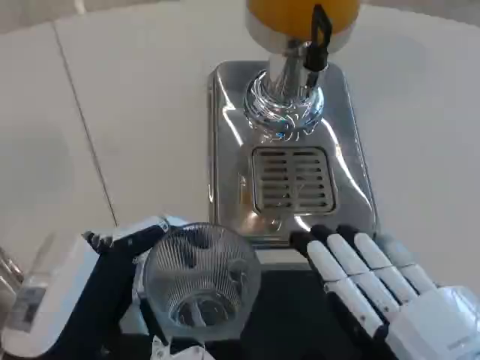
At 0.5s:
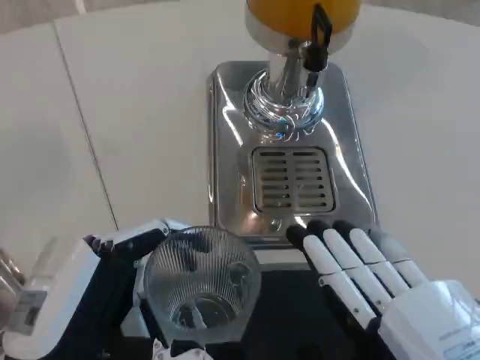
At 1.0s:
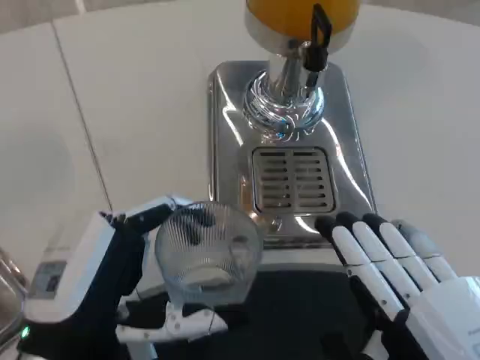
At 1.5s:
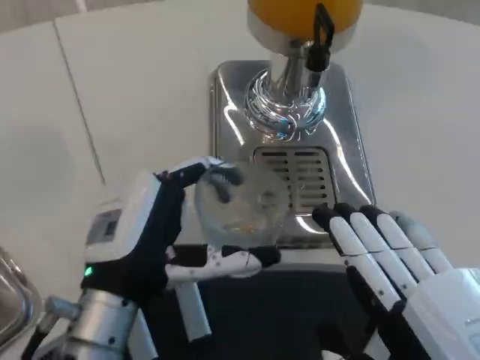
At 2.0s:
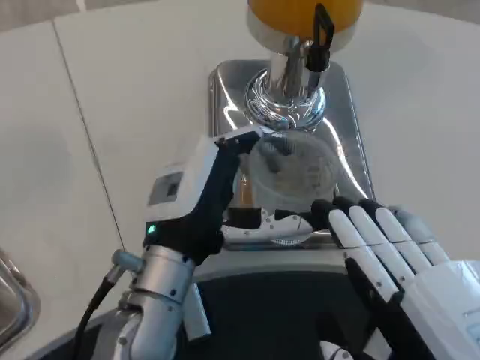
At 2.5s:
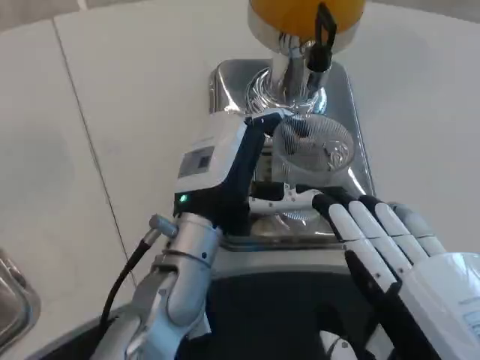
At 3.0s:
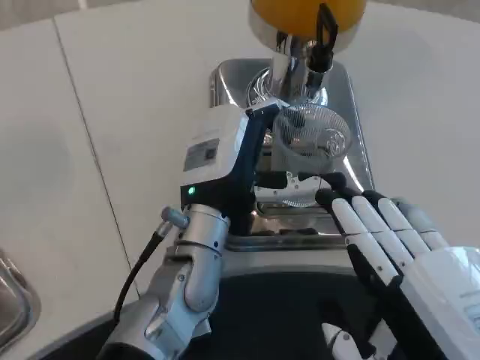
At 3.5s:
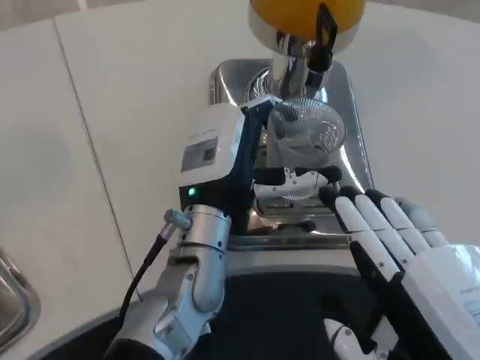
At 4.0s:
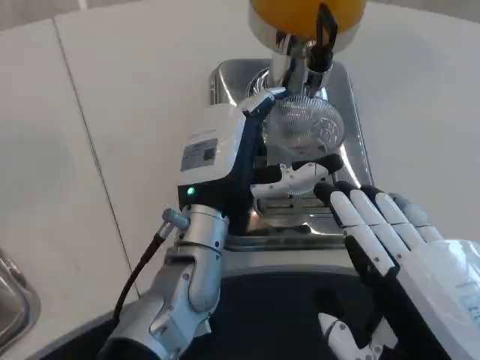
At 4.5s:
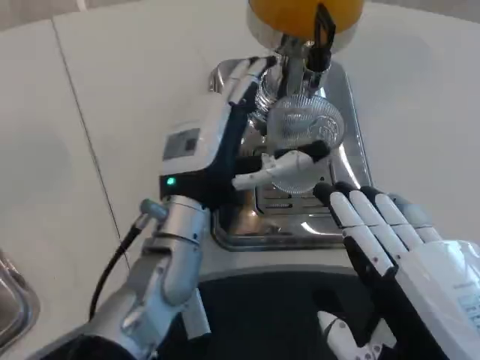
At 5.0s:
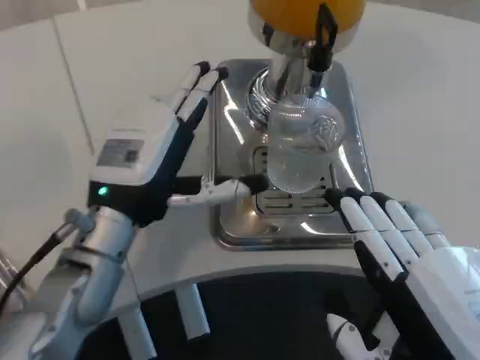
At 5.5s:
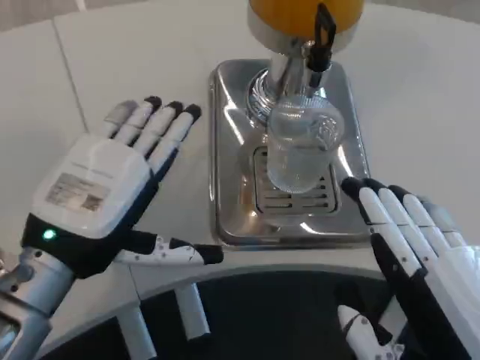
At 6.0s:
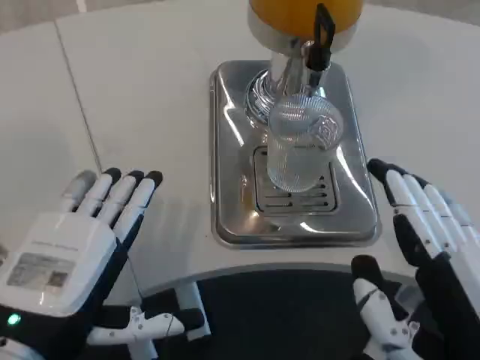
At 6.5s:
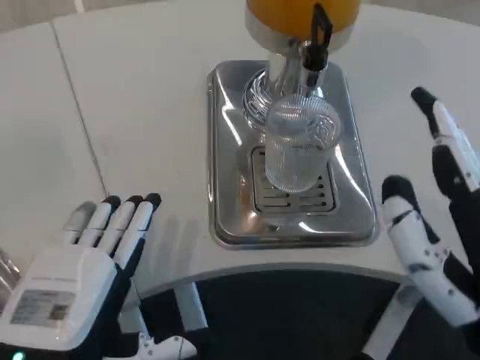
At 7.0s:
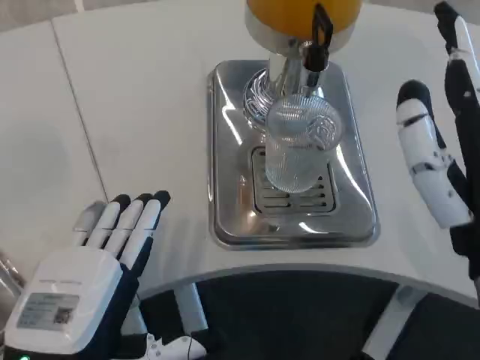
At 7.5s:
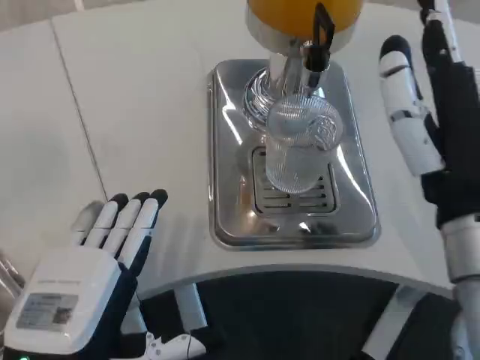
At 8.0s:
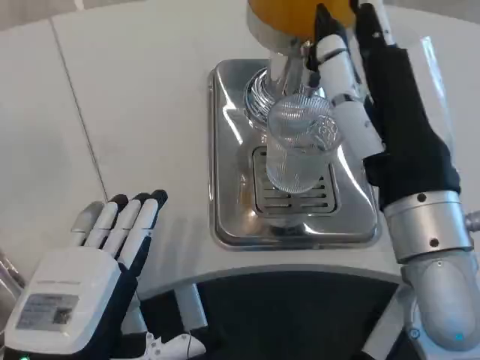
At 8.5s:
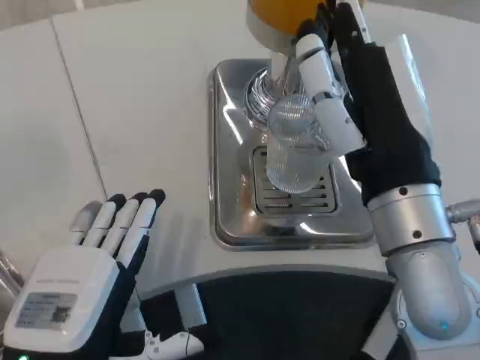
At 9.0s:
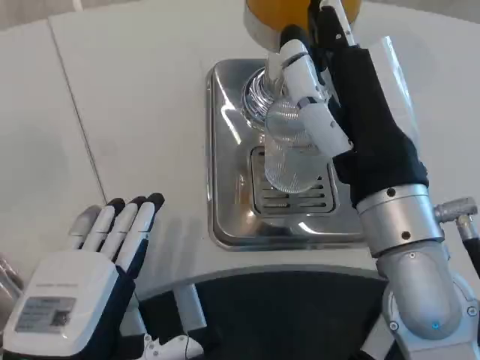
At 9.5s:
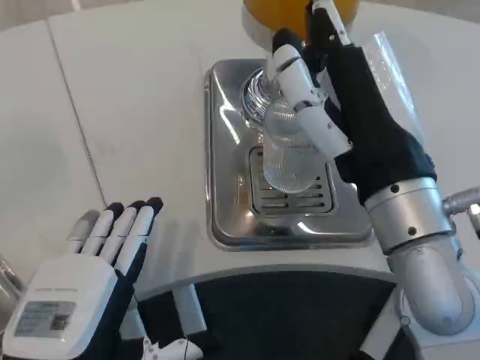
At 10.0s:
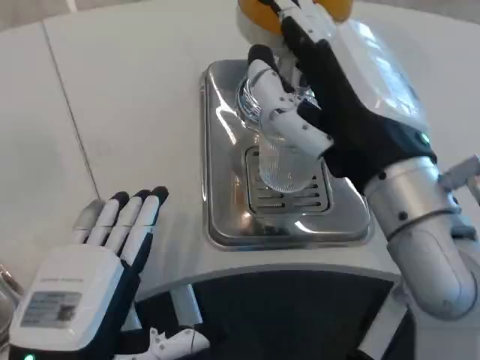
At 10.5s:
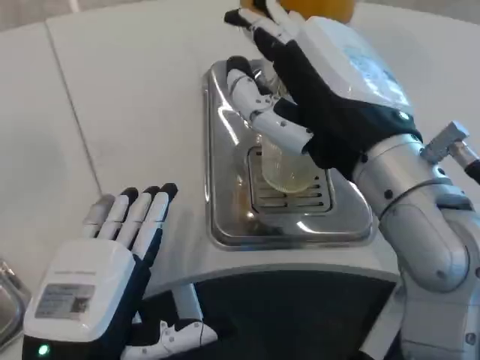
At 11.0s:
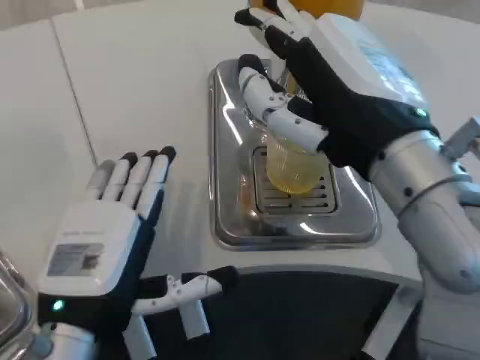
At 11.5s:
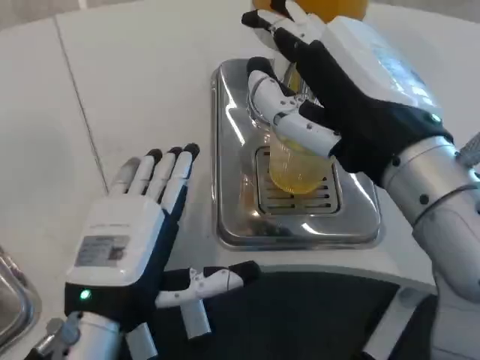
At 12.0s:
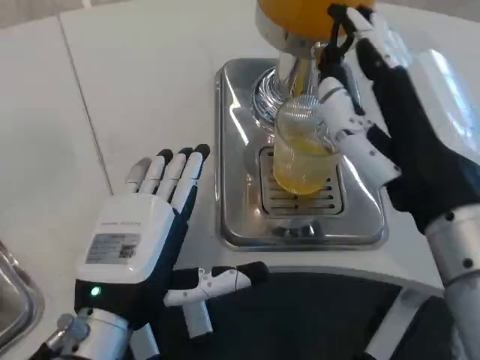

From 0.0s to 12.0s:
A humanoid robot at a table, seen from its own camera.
Task of the whole recording: Grasp the cup under the faucet to collect the drink, then remove the cup.
From 0.0s to 2.0s: The left hand moves forward and to the right, approximately 15 cm.
From 2.0s to 4.0s: The left hand is displaced forward by some 5 cm.
From 4.0s to 6.0s: The left hand moves backward and to the left, some 20 cm.
From 6.0s to 8.0s: The right hand shifts some 15 cm forward, to the left and upward.
From 10.0s to 12.0s: The left hand shifts some 5 cm forward.

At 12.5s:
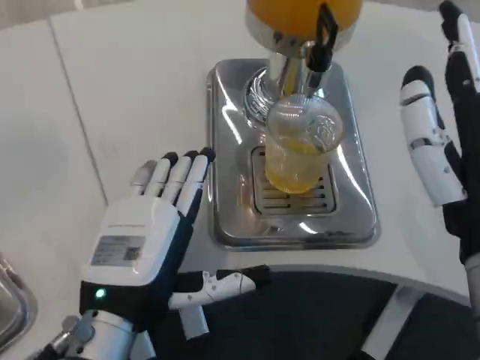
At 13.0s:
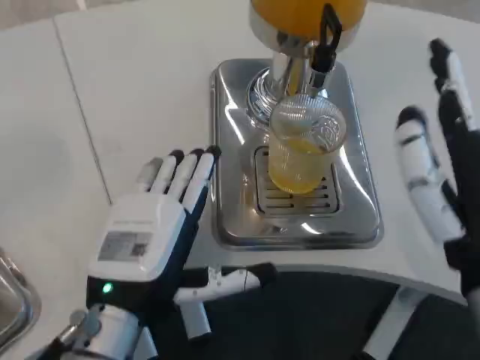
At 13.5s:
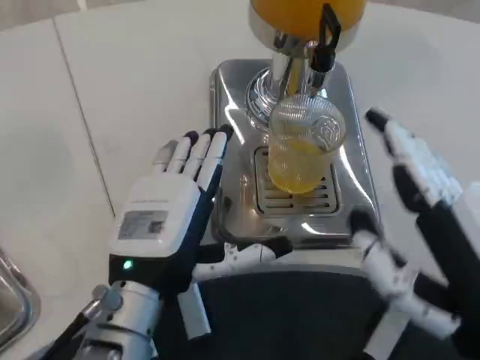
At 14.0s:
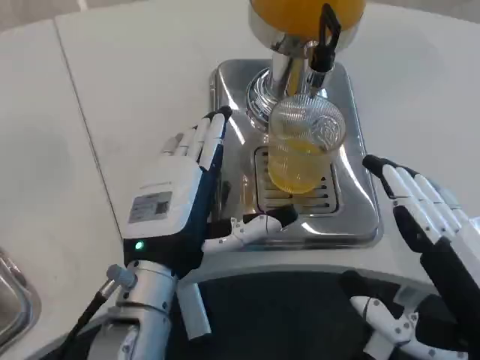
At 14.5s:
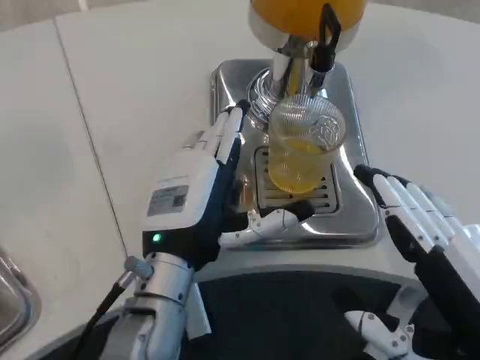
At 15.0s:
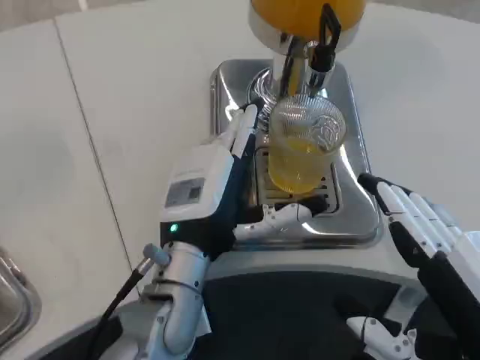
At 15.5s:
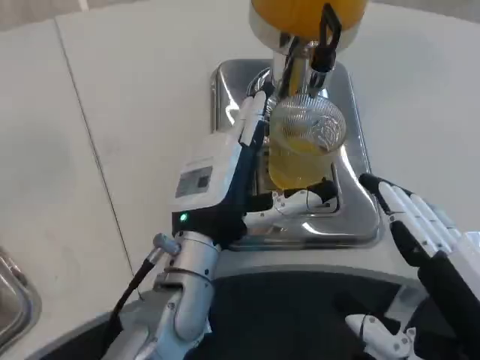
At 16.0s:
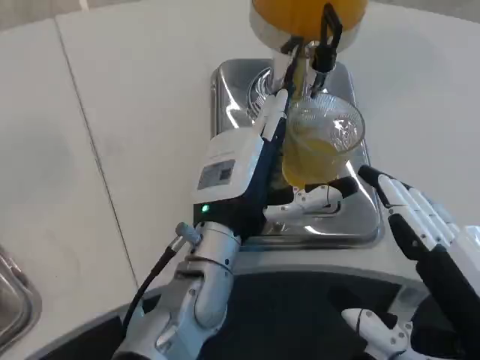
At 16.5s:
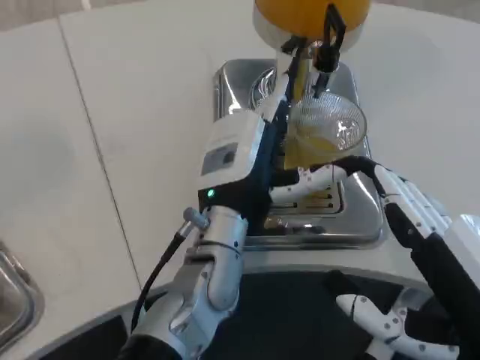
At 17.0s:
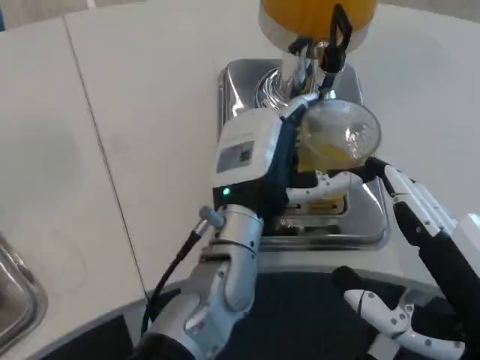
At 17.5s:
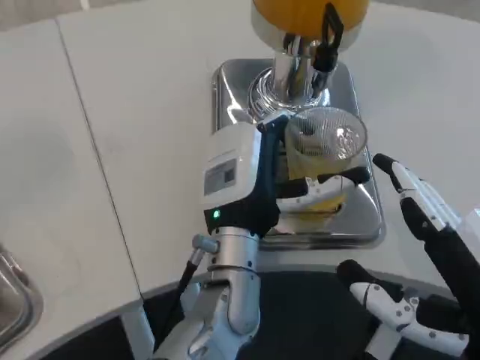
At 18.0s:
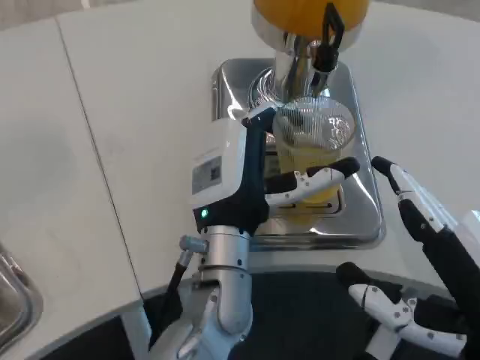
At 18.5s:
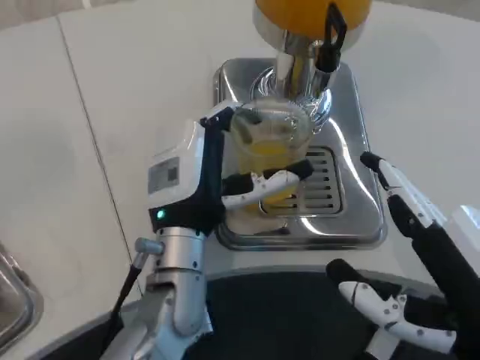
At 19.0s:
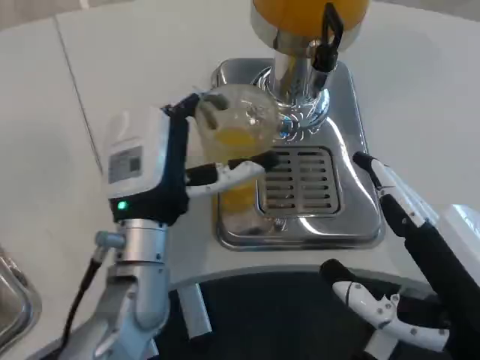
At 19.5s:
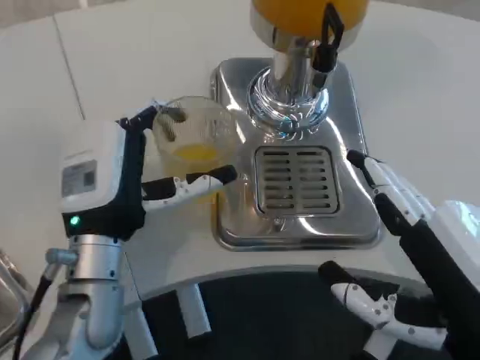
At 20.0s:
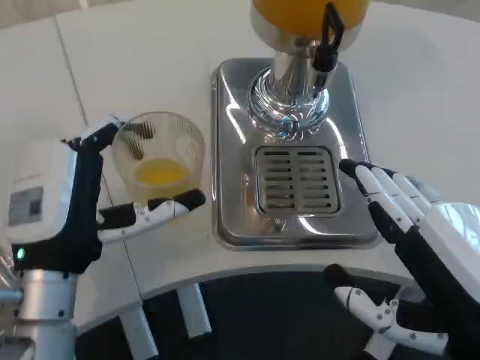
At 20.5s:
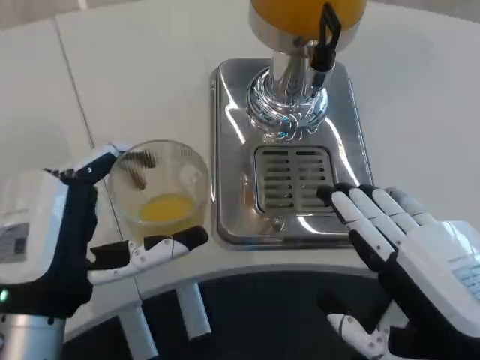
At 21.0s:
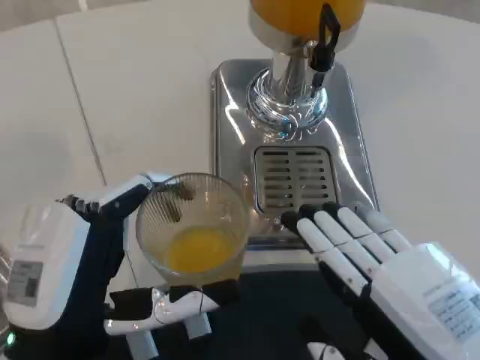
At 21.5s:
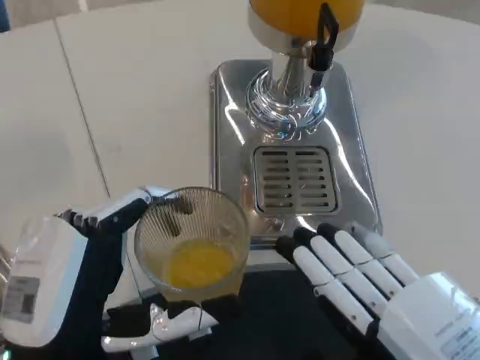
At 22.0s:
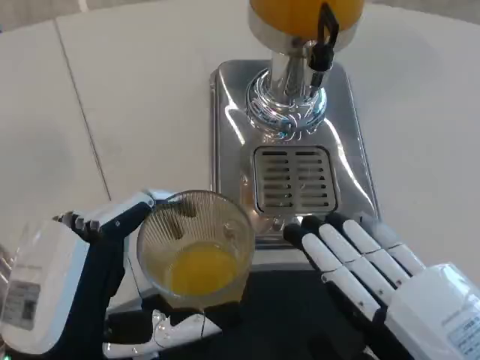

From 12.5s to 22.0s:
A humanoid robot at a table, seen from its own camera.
Task of the whole recording: Grasp the cup under the faucet to collect the drink, then remove the cup.
From 12.5s to 14.5s: The left hand moves forward, some 5 cm. The right hand shifts about 10 cm backward and to the right.
From 14.5s to 16.5s: The left hand moves to the right, approximately 5 cm.
From 16.5s to 18.0s: The hands make only small movements.
From 18.0s to 20.0s: The left hand heads to the left, covering roughly 15 cm.
From 20.0s to 22.0s: The left hand heads backward, covering approximately 10 cm.

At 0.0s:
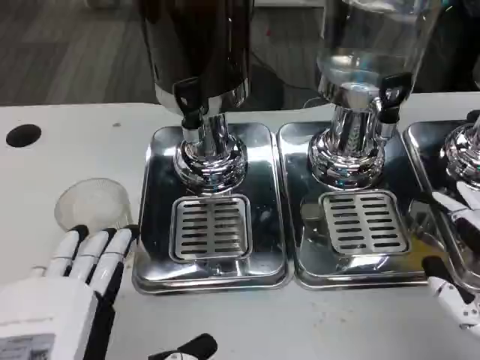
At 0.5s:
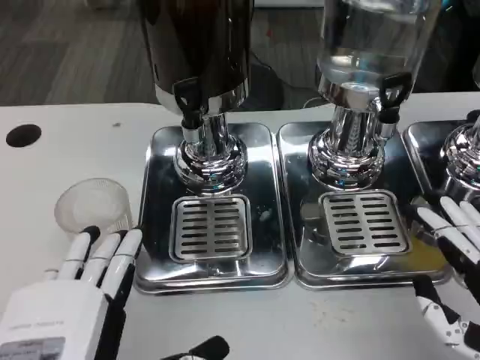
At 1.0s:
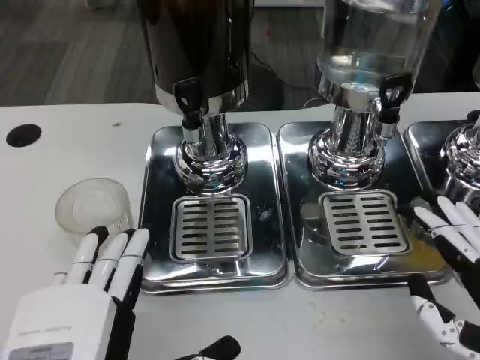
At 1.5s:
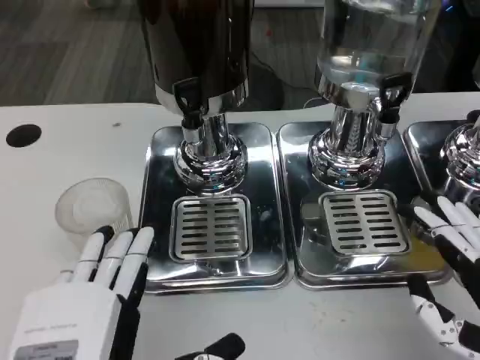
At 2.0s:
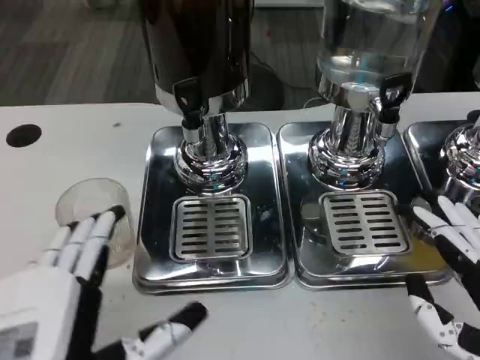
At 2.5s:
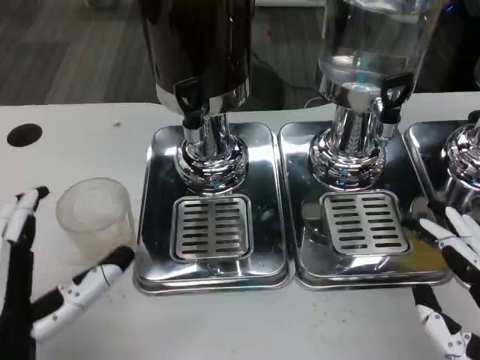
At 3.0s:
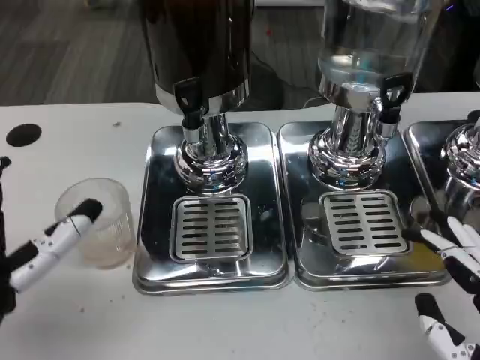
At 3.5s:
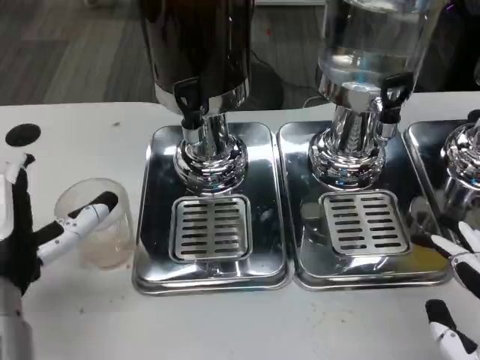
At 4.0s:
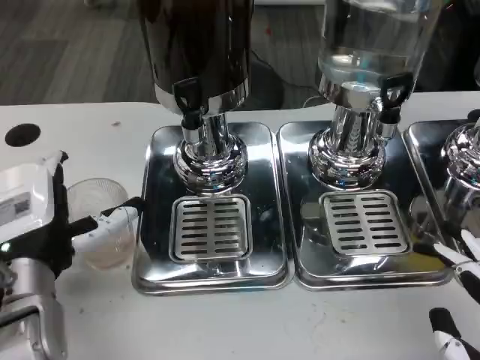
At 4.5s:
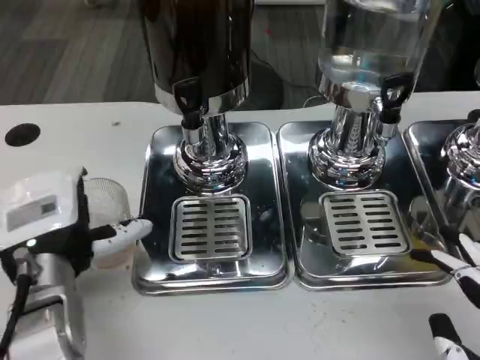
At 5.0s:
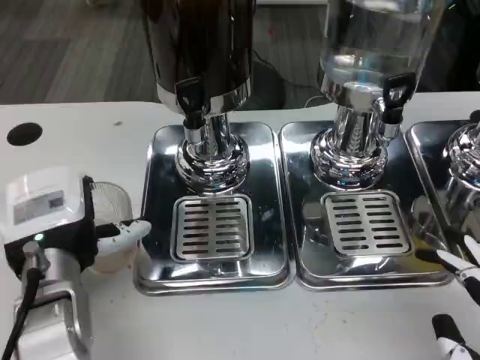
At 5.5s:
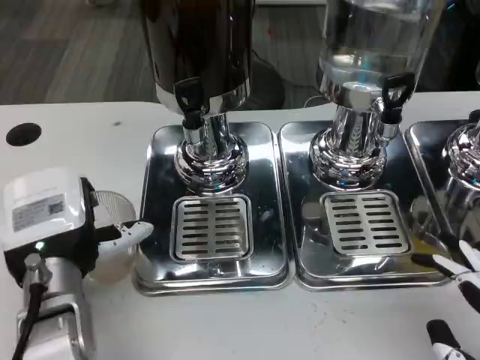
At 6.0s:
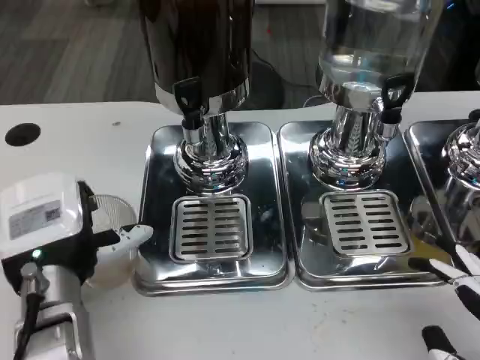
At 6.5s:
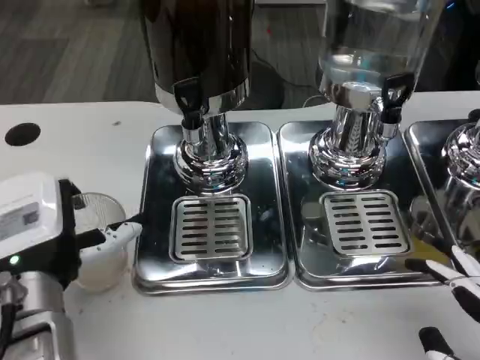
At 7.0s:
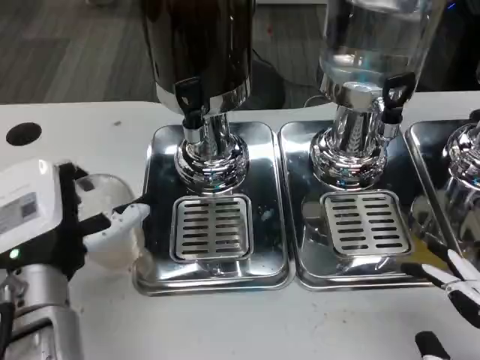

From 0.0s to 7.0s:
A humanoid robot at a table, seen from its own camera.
Task of the whole recording: Grasp the cup under the faucet to collect the drink, then remove the cup.
From 0.0s to 2.0s: There are only small adjustments of the hands.
From 2.0s to 3.5s: The left hand is displaced forward by roughly 10 cm.
From 5.0s to 7.0s: There are only small adjustments of the hands.
